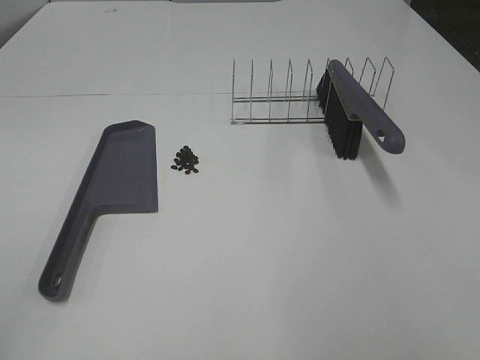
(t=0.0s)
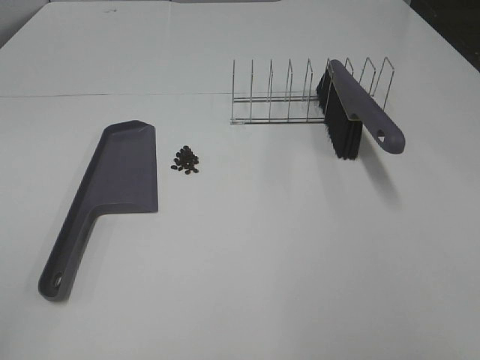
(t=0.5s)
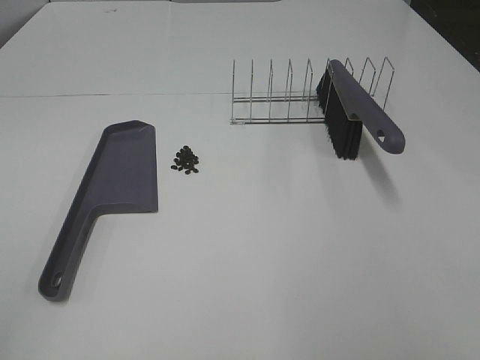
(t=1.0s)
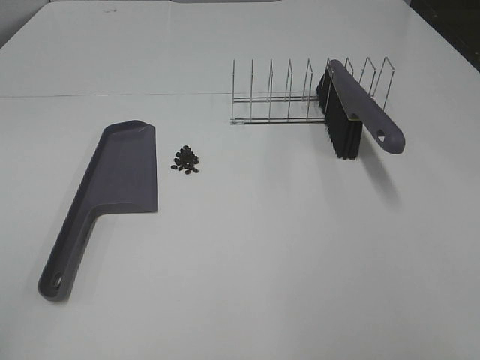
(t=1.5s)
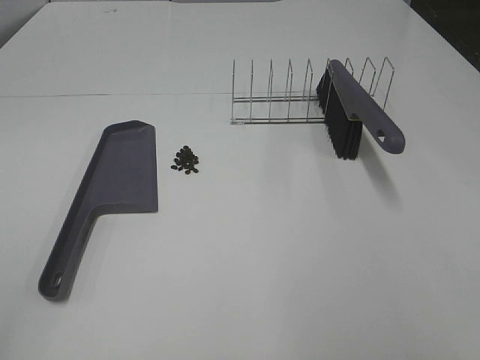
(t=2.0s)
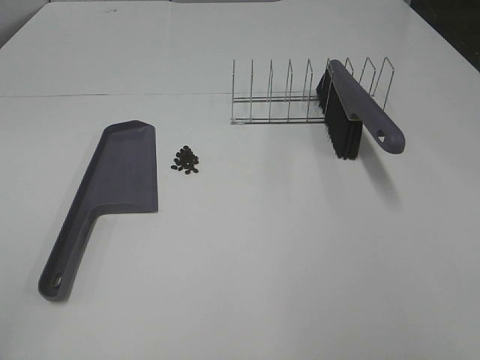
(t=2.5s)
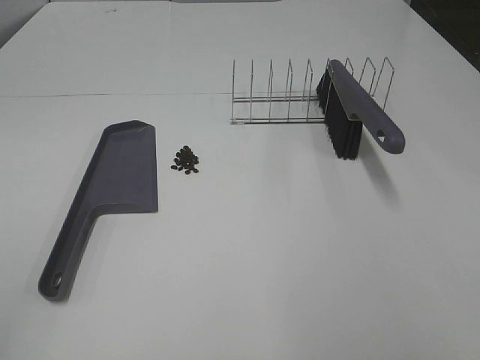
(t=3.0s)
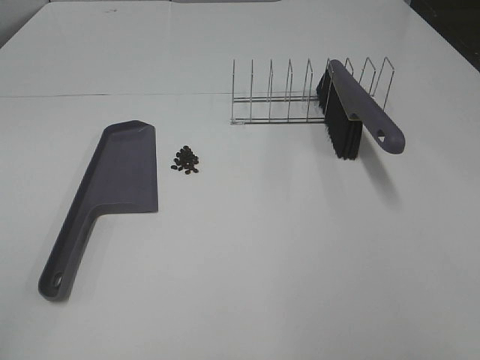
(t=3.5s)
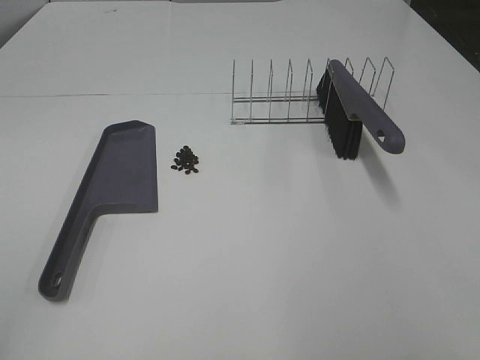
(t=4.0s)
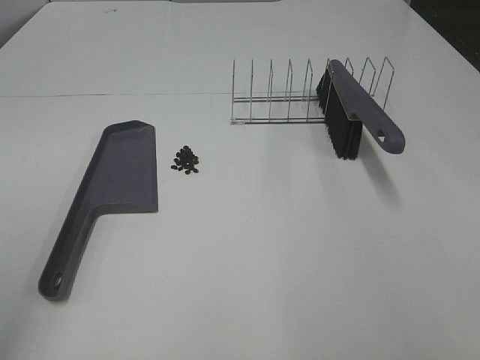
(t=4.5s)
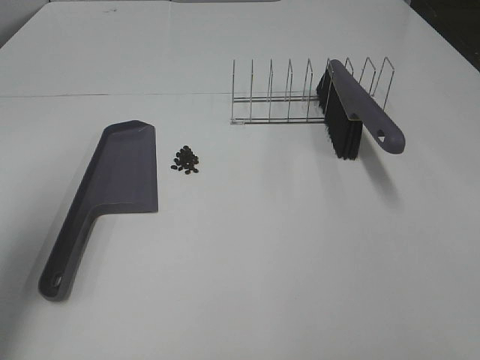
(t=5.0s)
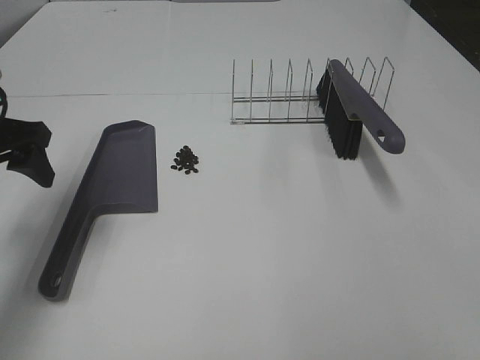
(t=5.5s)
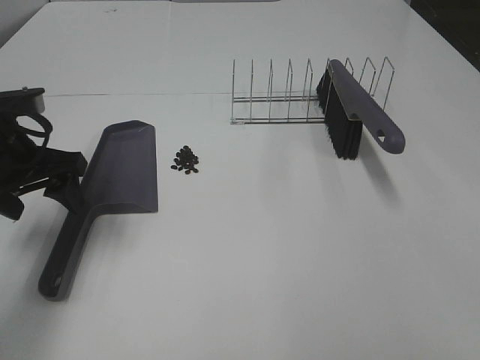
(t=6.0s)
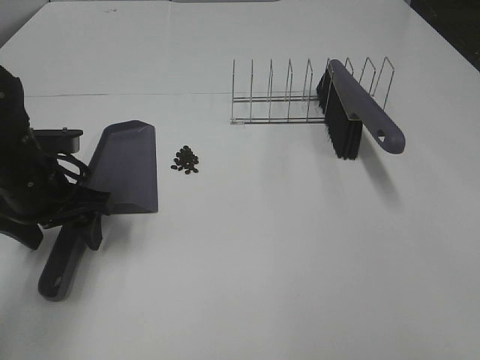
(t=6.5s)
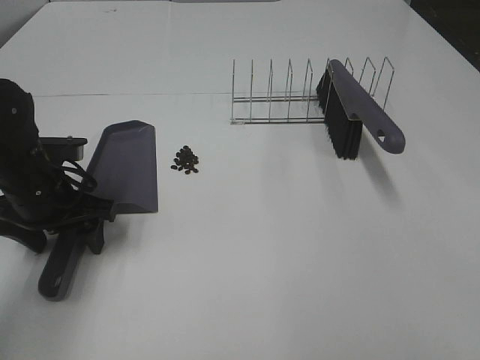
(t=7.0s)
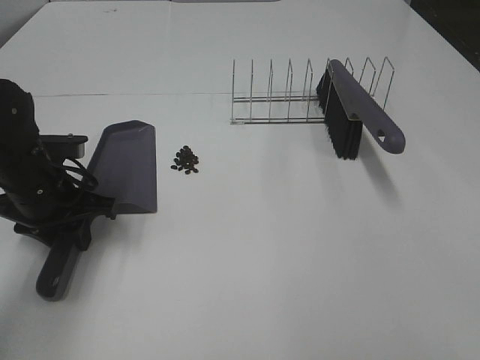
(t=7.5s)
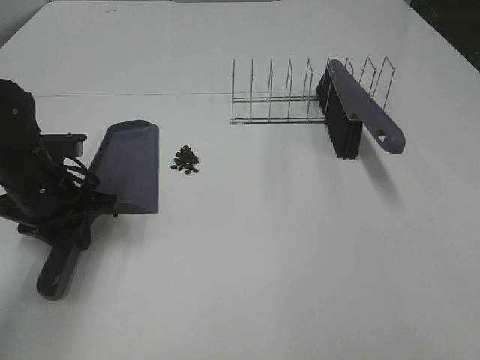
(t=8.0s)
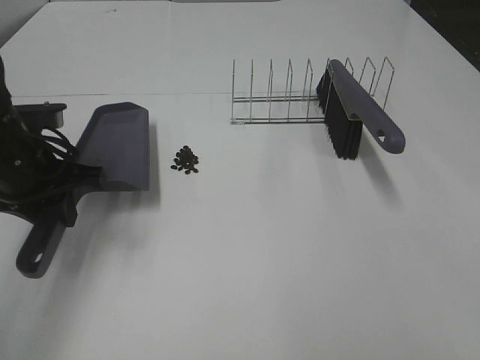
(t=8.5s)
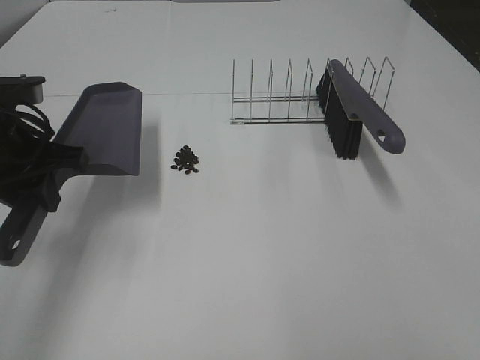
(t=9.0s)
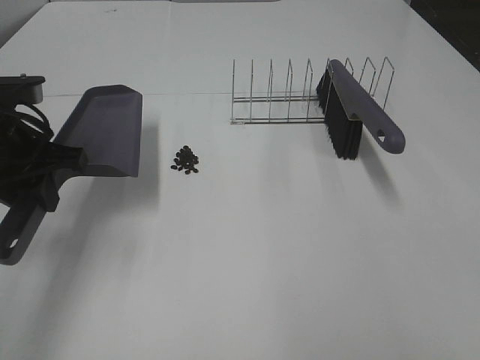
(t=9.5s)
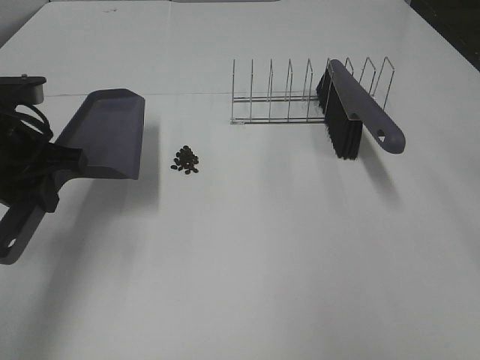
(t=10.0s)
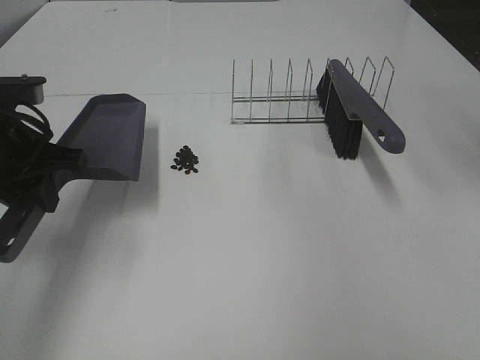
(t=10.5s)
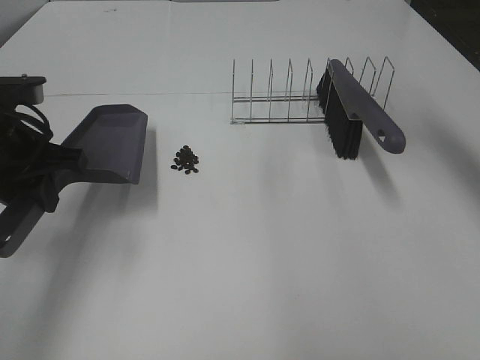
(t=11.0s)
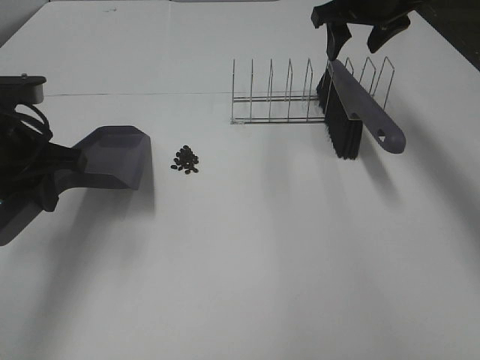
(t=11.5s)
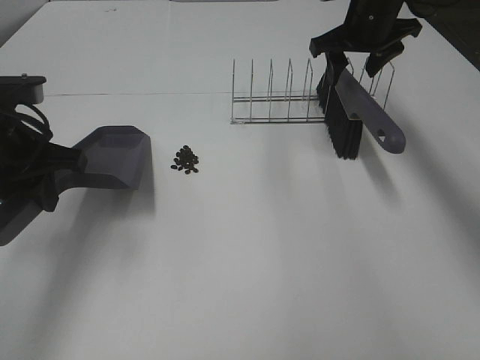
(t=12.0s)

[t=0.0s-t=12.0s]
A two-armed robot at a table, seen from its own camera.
Task of the whole recording: Sweep Coffee Bean.
Step, t=0.0s to t=7.5s: Left hand: grab the dustpan.
t=0.0s to t=4.0s: Both grippers stay about where they are.
t=4.0s to t=6.0s: The left gripper is displaced forward by about 30 cm.
t=6.0s to t=8.0s: The left gripper moves downward, approximately 5 cm, and closes.
t=8.0s to t=10.0s: The left gripper heads upward, covering approximately 10 cm.
t=10.0s to t=12.0s: The right gripper heads forward and downward, covering roughly 35 cm.

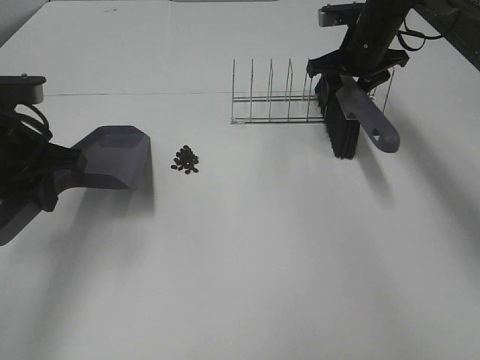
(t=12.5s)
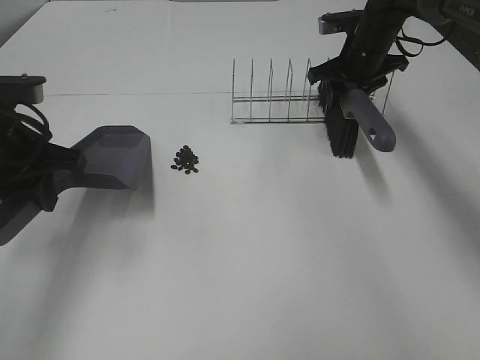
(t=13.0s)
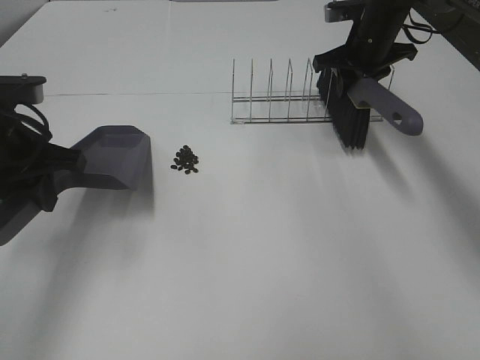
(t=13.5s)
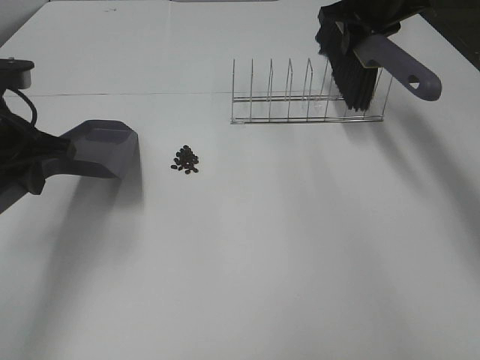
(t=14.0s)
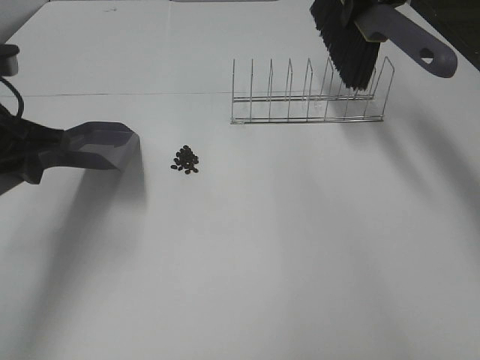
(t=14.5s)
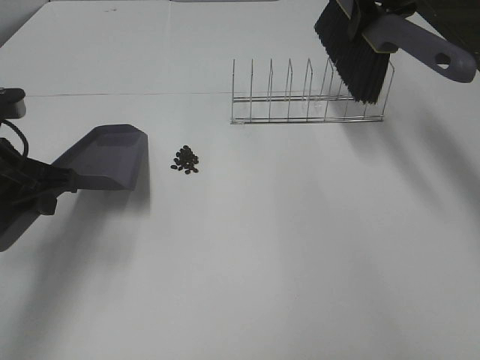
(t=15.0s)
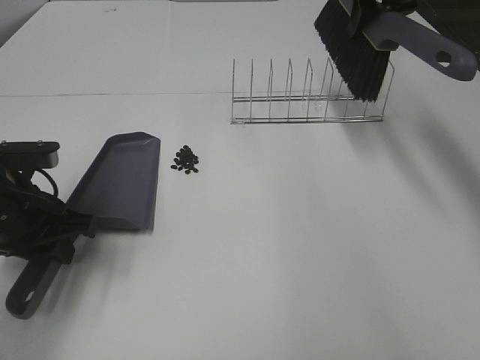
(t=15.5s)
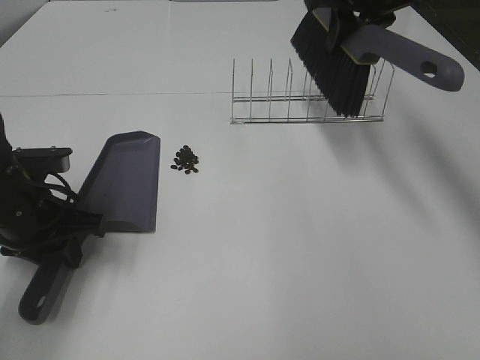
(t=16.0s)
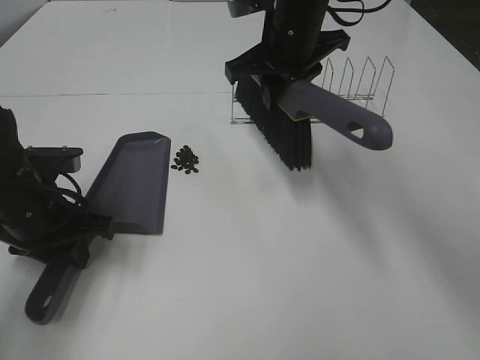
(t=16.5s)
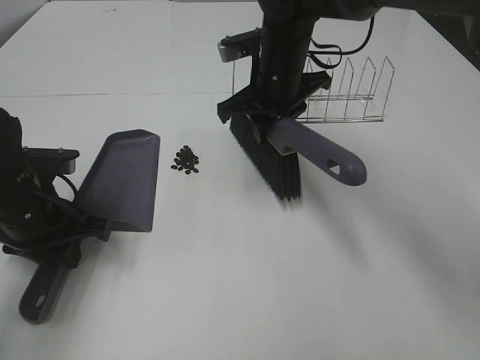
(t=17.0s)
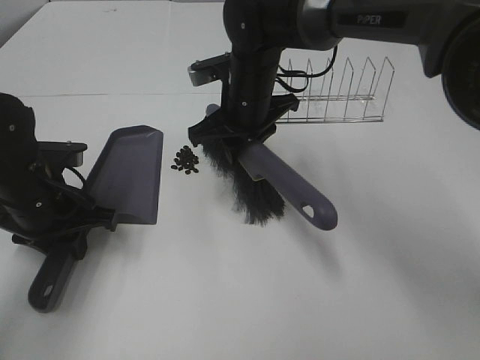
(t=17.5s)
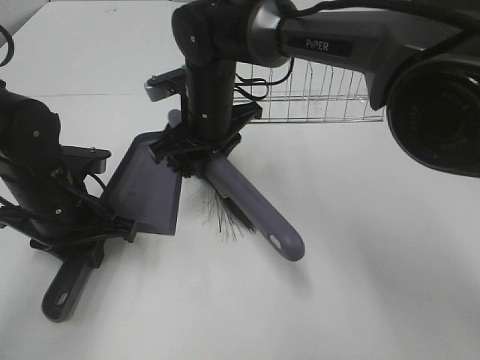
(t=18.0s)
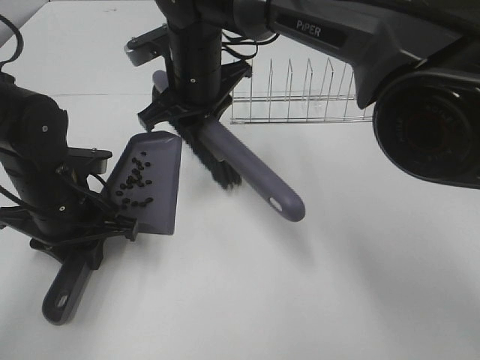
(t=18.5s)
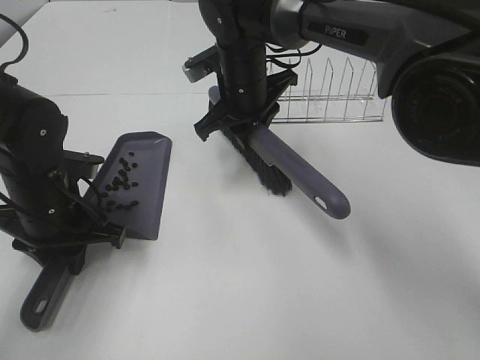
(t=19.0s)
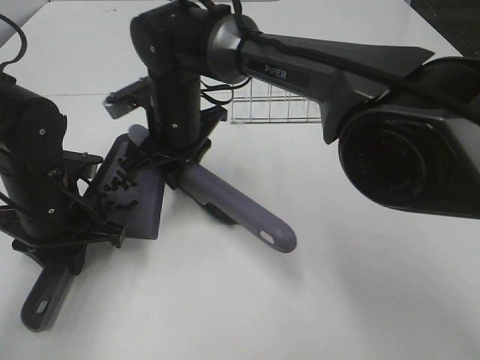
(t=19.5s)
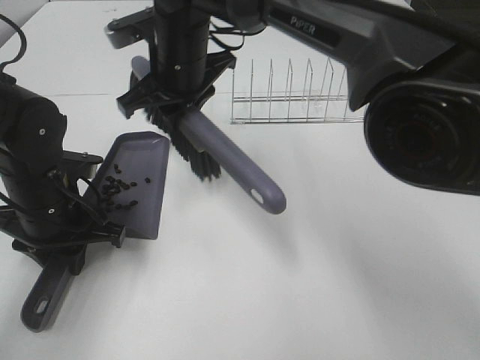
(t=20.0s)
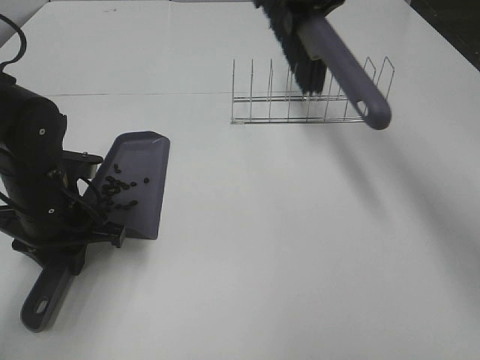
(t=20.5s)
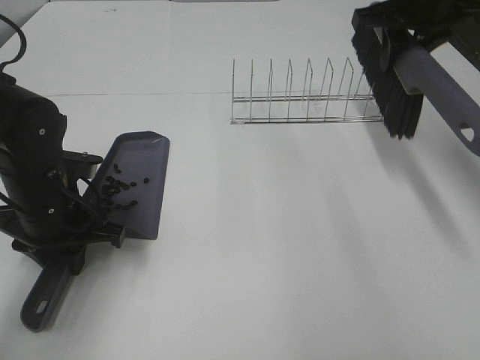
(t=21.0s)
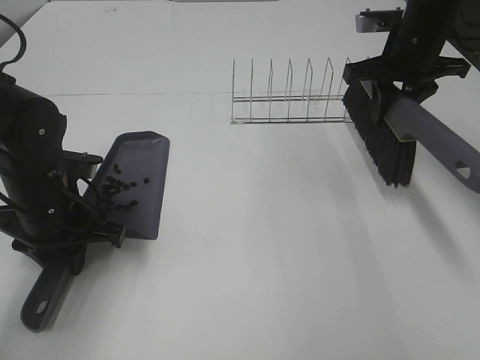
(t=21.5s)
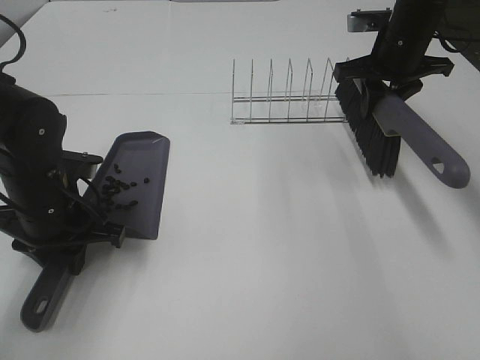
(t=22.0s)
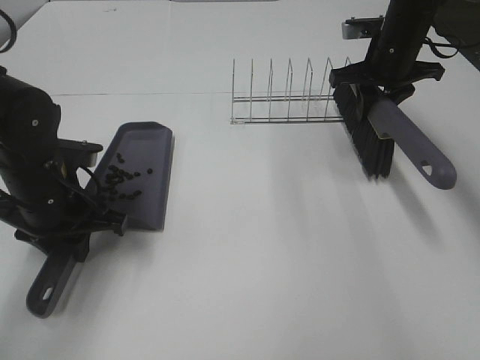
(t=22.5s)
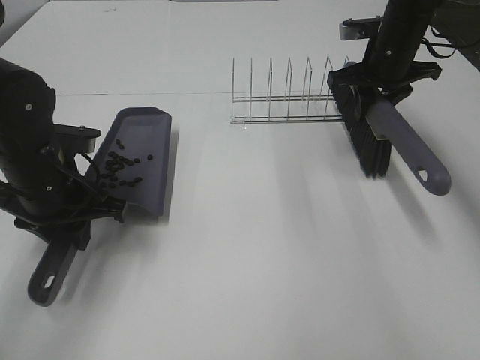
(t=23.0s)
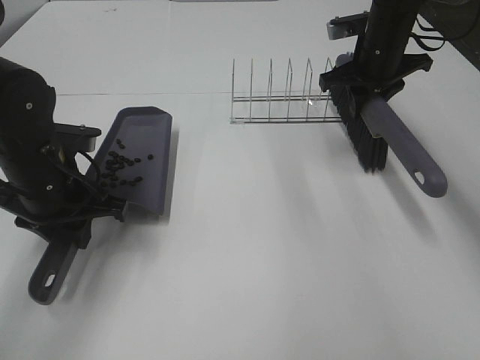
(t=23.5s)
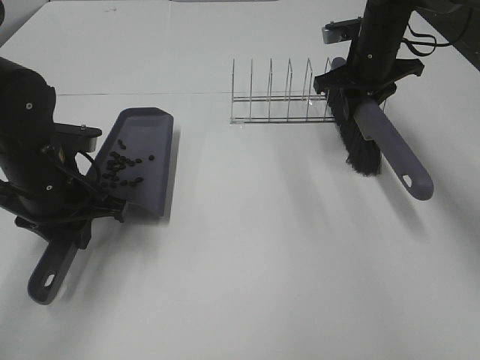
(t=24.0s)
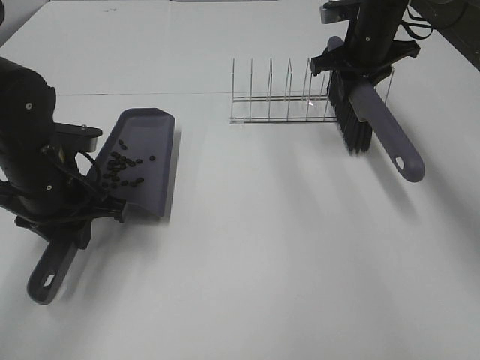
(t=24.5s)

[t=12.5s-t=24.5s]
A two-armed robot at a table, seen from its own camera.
Task of the whole recording: Sweep Coffee Bean.
Step, t=12.5s to t=17.0s: Left hand: move the dustpan to the left side of the coffee beans.
Step, t=13.5s to t=18.0s: Right hand:sweep the coffee beans into the dustpan.
t=12.5s to t=14.5s: The right gripper heads upward, covering some 15 cm, and closes up.
t=14.5s to t=16.5s: The right gripper goes approximately 15 cm to the left, backward and downward. The left gripper heads downward, covering about 10 cm.
t=16.5s to t=18.5s: The right gripper moves to the left, approximately 10 cm.
t=18.5s to t=20.5s: The right gripper moves left and right over approximately 20 cm, changing direction 2 times.
t=20.5s to t=22.5s: The right gripper shifts about 15 cm downward and to the right.
t=22.5s to t=24.5s: The grippers move only a little.

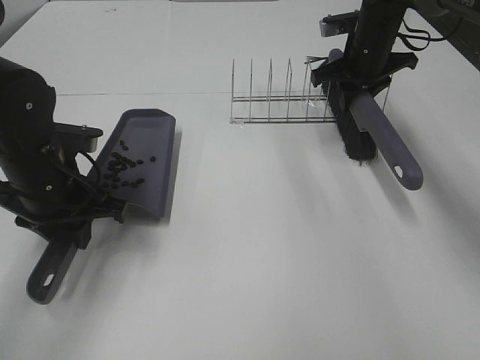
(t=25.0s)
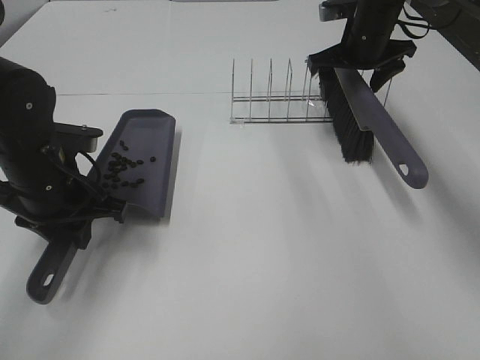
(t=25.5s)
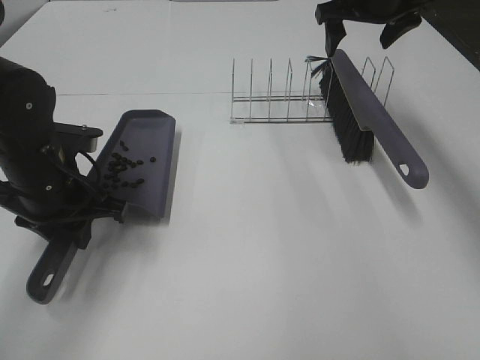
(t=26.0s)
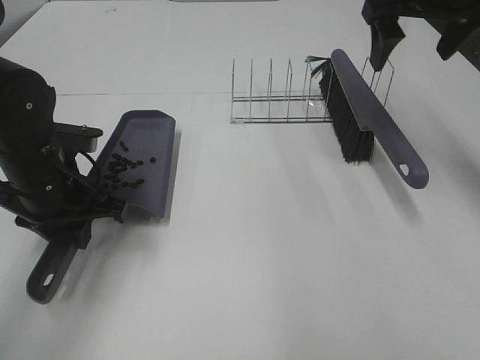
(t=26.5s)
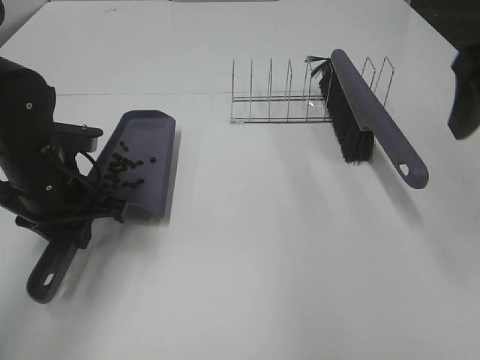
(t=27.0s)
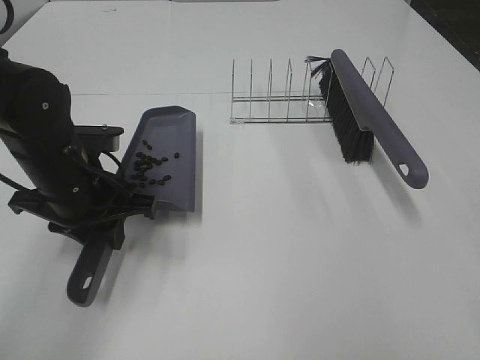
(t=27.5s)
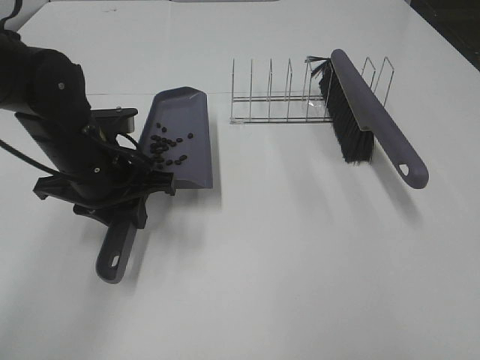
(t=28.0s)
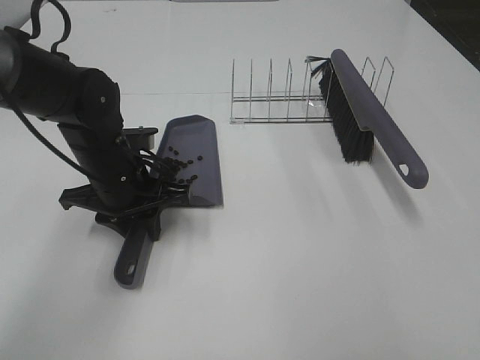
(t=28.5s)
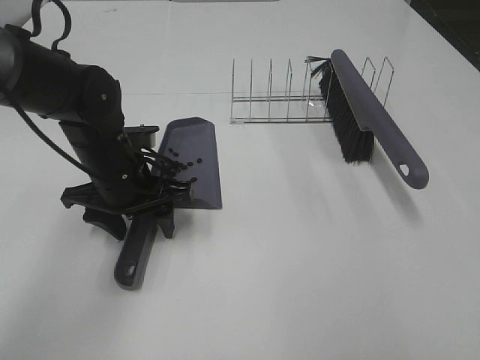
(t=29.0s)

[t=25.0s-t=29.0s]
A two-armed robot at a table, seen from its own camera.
Task of the whole recording: Sweep Coffee Bean.
Step, t=25.5s to t=28.5s: Left hand:place the dustpan on the table.
t=25.0s to t=27.0s: The right gripper moves backward and upward, approximately 30 cm, and opens.
t=27.0s to t=29.0s: The right gripper travels backward by roughly 15 cm. Meanwhile the left gripper is displaced to the right by about 5 cm, and opens its fingers.
